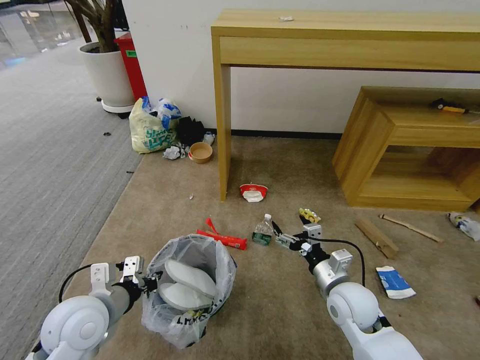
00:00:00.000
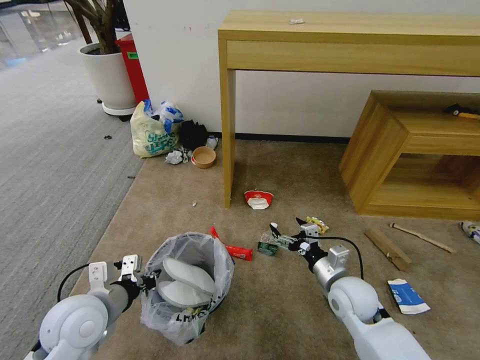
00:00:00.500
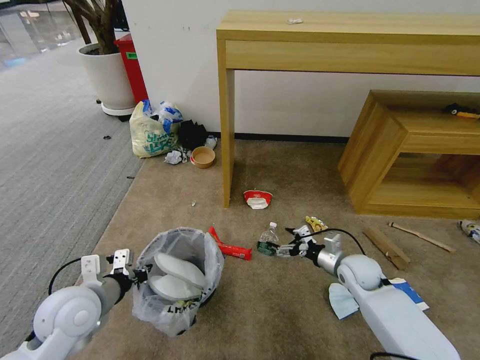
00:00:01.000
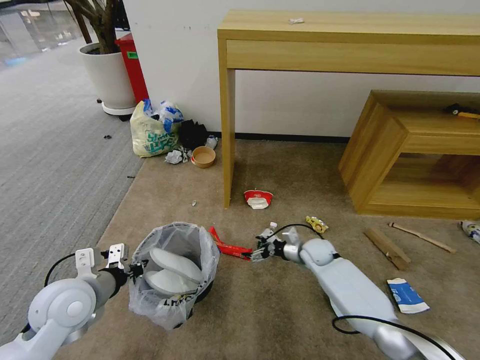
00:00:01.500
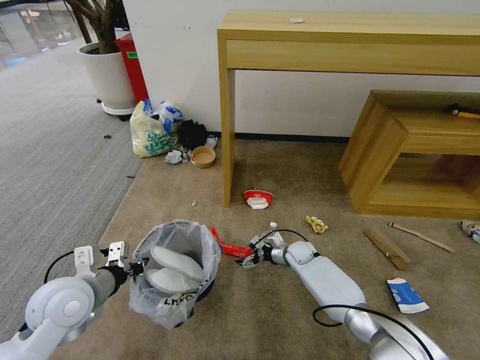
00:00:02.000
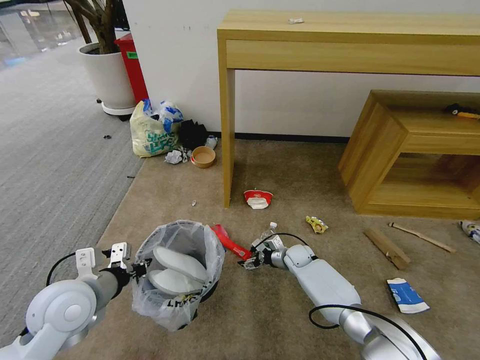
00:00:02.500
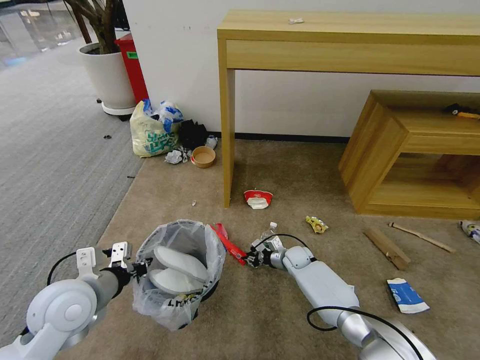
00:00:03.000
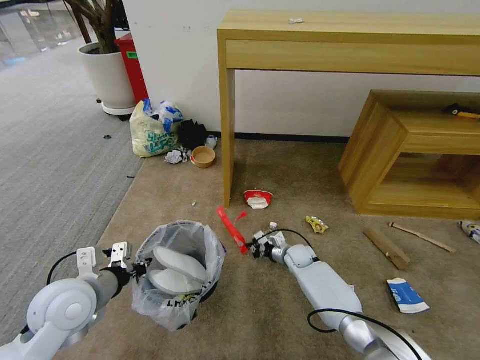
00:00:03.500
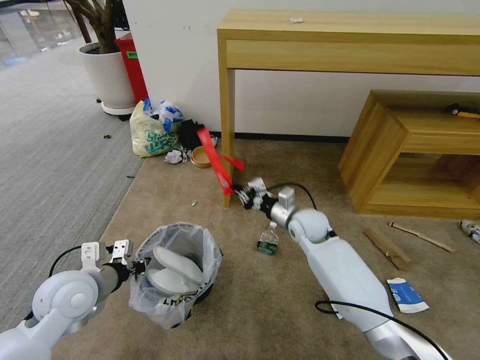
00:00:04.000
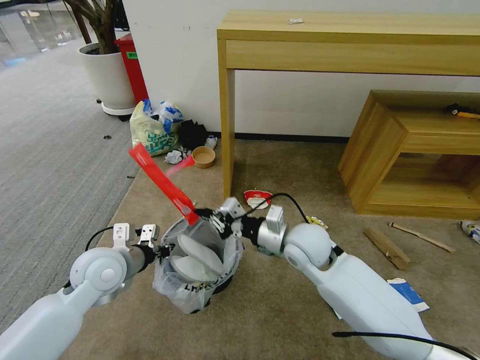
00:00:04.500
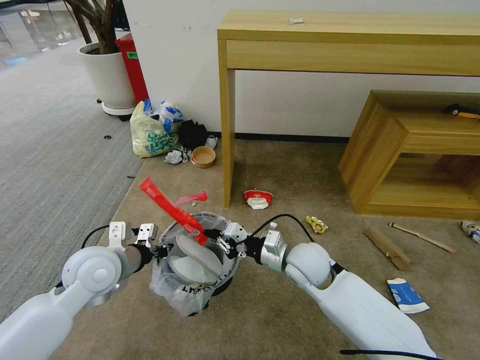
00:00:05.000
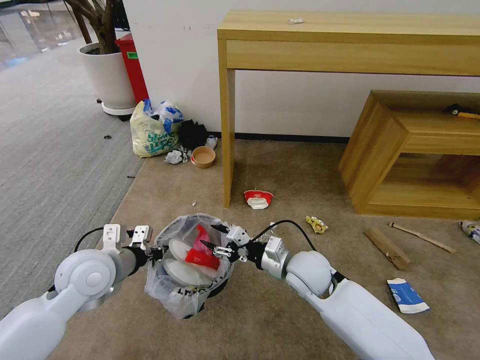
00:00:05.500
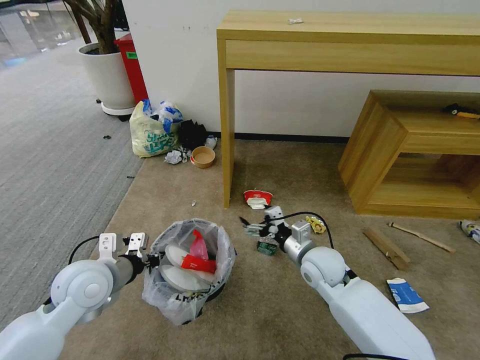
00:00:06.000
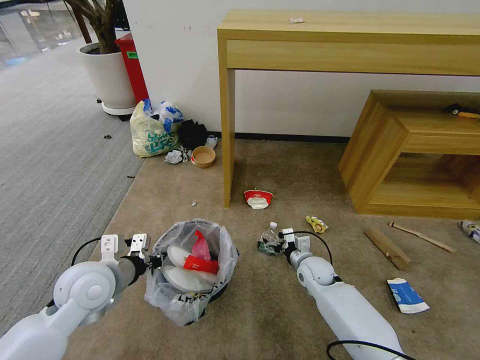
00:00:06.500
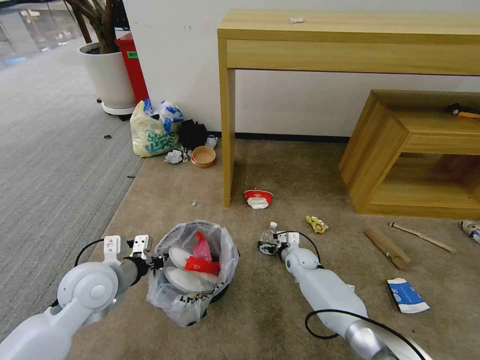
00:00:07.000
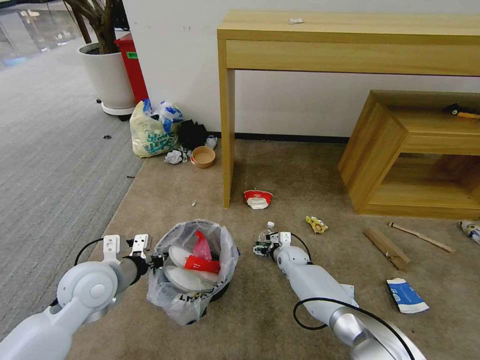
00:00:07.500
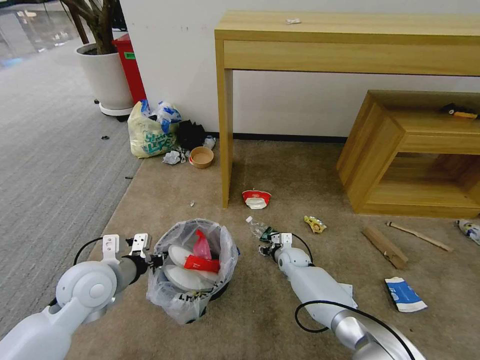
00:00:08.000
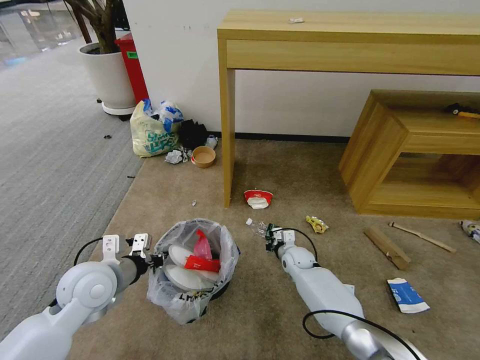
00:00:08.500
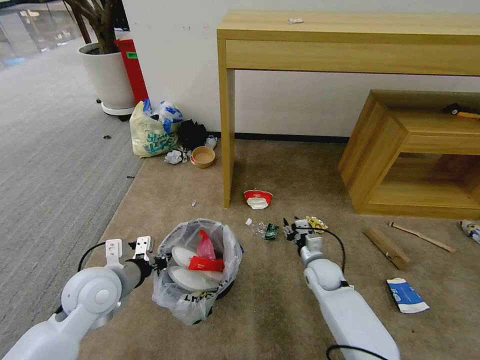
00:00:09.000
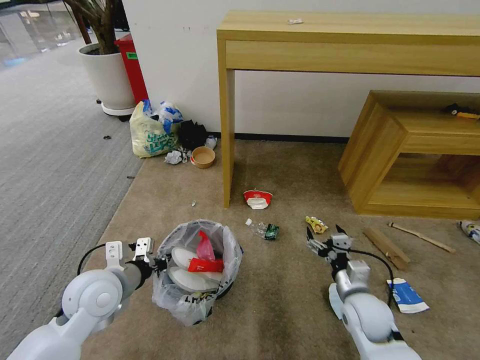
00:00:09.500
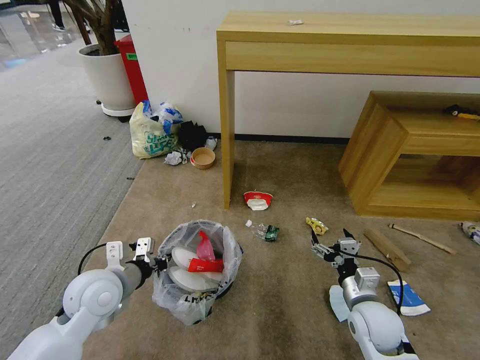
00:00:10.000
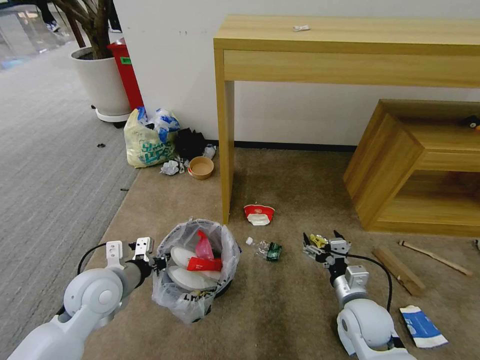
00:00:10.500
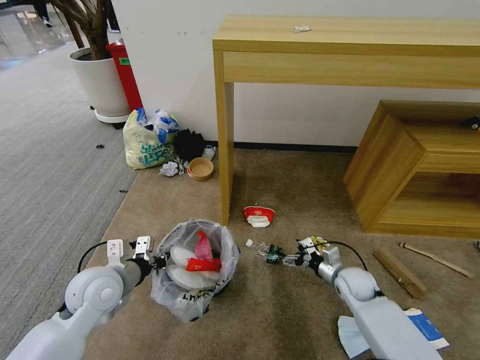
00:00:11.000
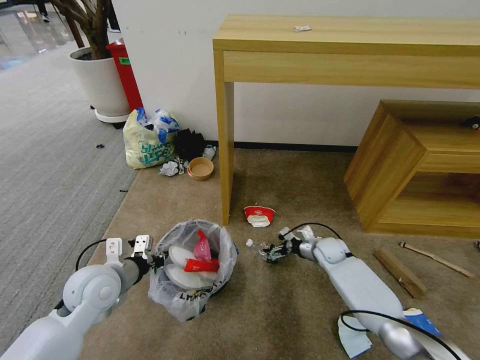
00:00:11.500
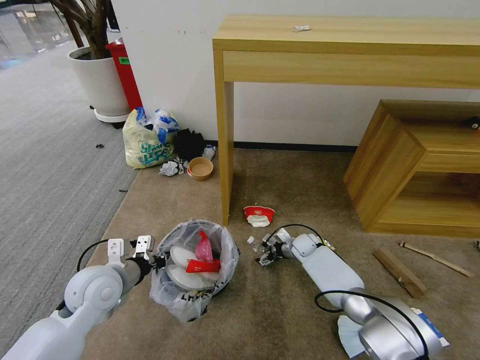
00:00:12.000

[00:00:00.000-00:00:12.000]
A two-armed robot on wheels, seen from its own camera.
Task of the whole recording: Pick up the trash bin and place the garbage on the floor into it.
00:00:00.000 to 00:00:02.000: The right gripper heads forward and downward, covering roughly 25 cm.
00:00:02.000 to 00:00:04.000: The right gripper moves upward, approximately 20 cm, and closes.
00:00:04.000 to 00:00:06.000: The right gripper shifts some 10 cm backward, and opens up.
00:00:06.000 to 00:00:08.000: The right gripper is displaced downward and forward by some 20 cm, and closes up.
00:00:08.000 to 00:00:10.000: The right gripper is displaced backward, upward and to the right by approximately 30 cm, and opens.
00:00:10.000 to 00:00:12.000: The right gripper shifts roughly 30 cm forward and downward.

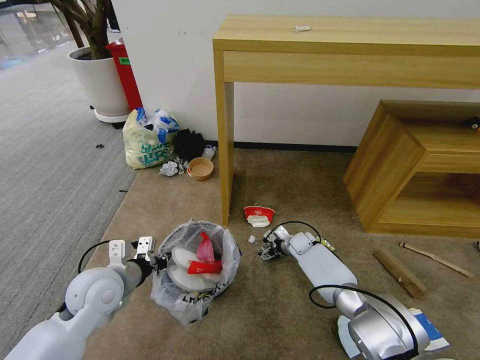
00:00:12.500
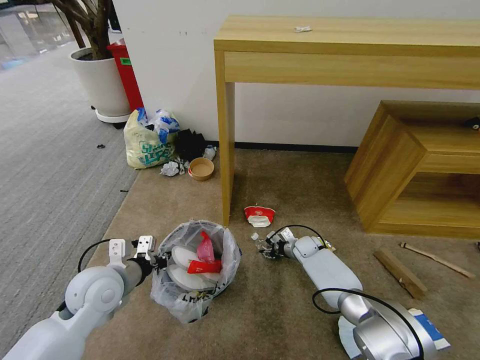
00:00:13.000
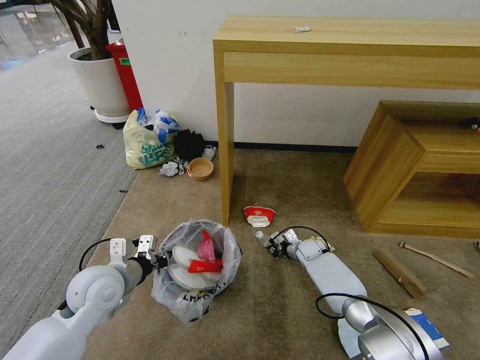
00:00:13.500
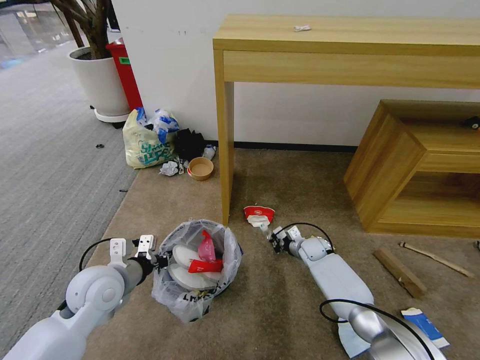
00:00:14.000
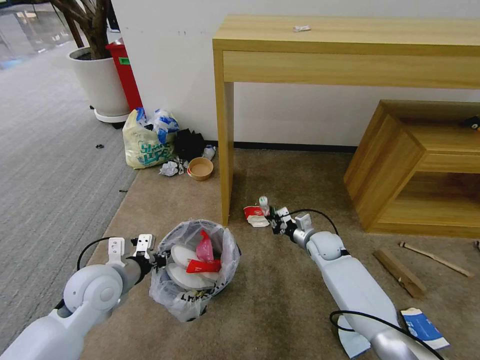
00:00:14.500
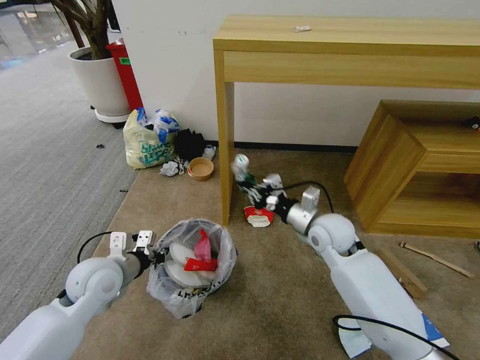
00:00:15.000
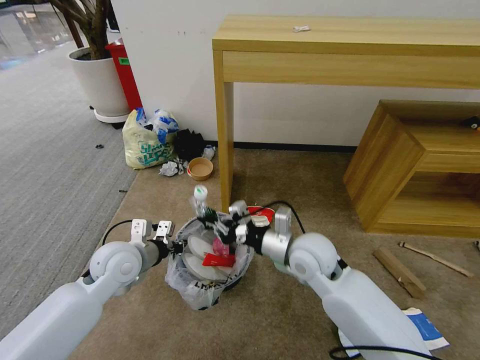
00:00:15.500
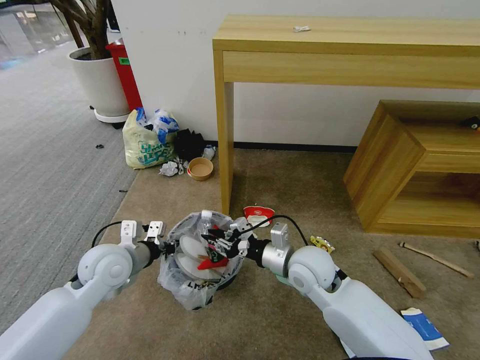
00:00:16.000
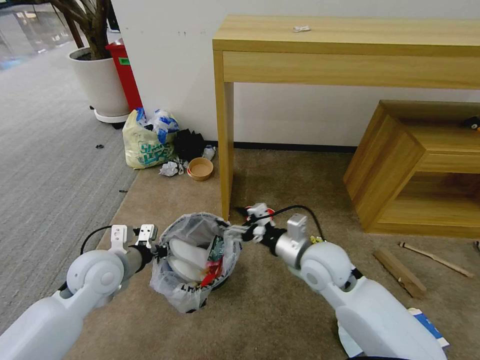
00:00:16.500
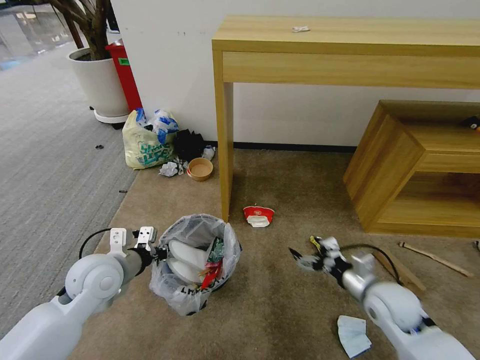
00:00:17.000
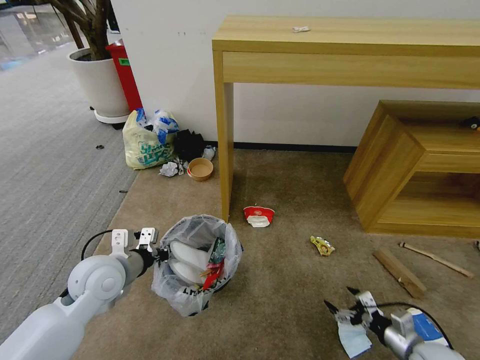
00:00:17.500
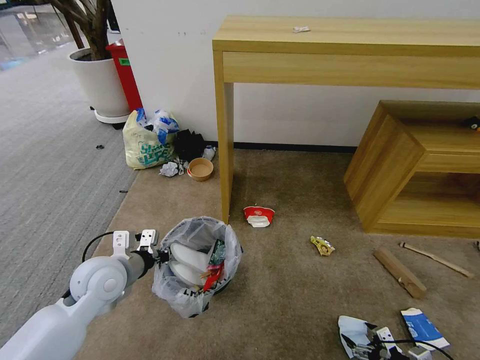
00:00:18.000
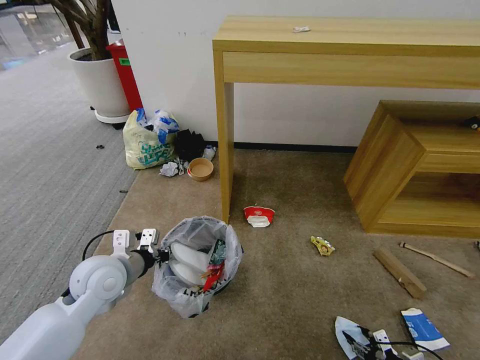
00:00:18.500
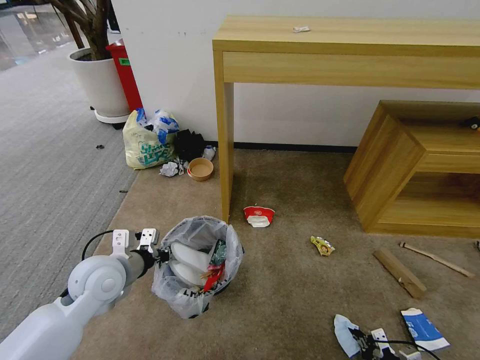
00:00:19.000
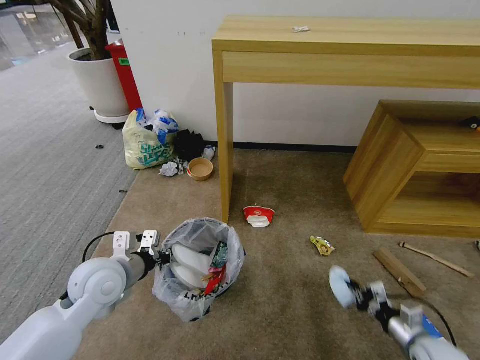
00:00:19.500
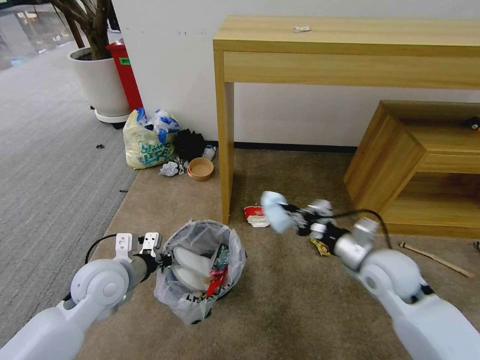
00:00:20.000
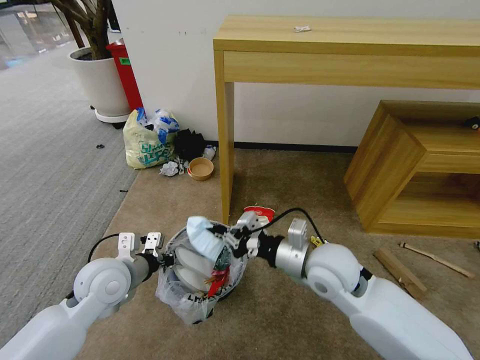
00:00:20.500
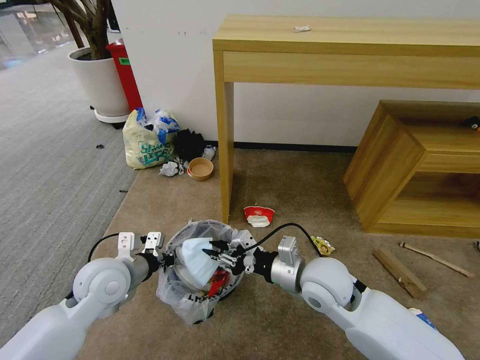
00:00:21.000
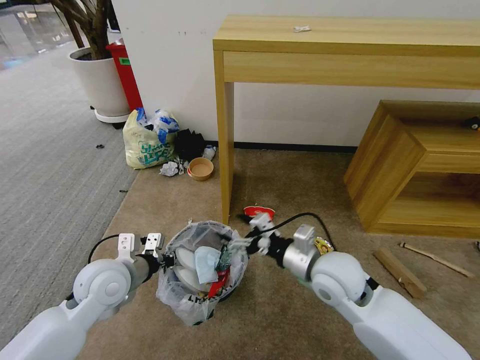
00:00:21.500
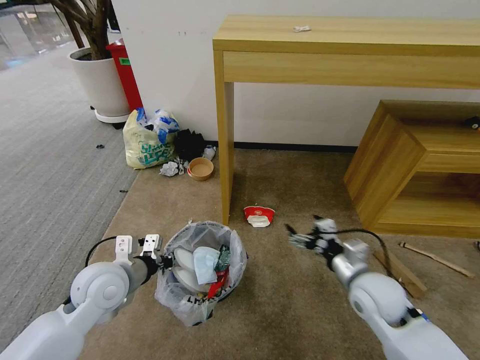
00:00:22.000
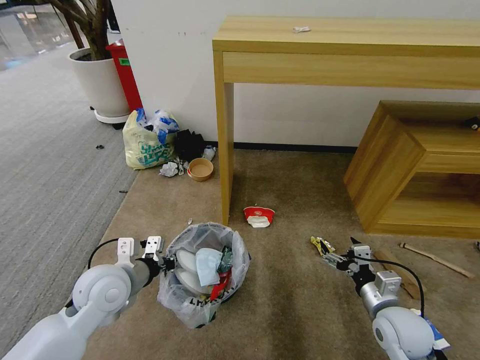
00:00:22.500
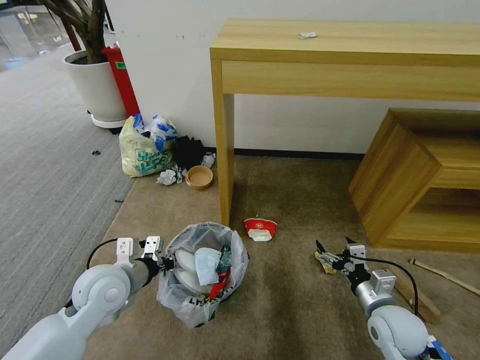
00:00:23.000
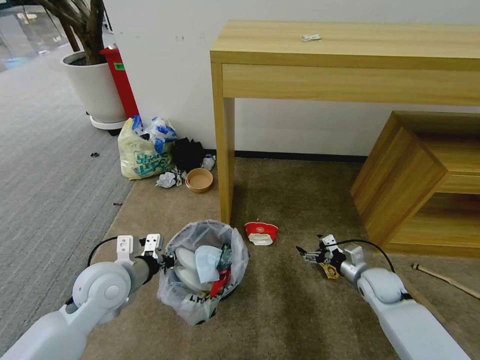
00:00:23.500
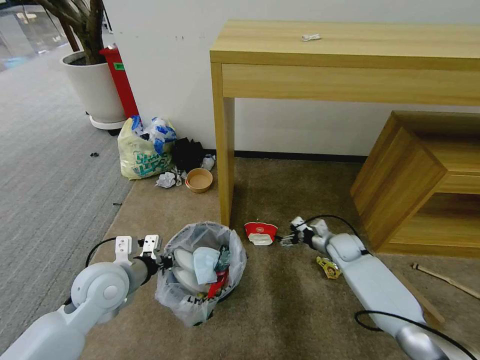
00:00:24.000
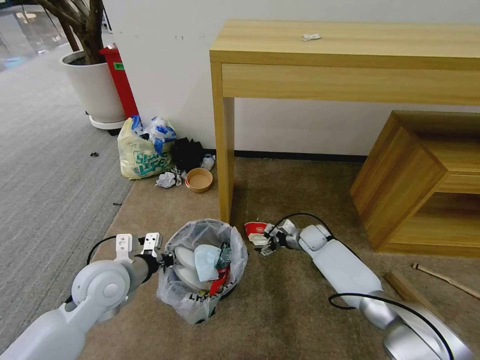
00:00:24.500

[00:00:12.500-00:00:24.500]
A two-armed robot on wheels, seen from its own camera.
Task of the whole recording: Pick up the trash bin and place the garbage on the floor into it.
00:00:12.500 to 00:00:14.500: The right gripper is displaced upward and backward by roughly 10 cm, and closes.
00:00:14.500 to 00:00:16.500: The right gripper travels upward, backward and to the left by about 20 cm, and opens up.
00:00:16.500 to 00:00:18.500: The right gripper moves to the right, downward and backward, approximately 50 cm.
00:00:18.500 to 00:00:20.500: The right gripper goes roughly 50 cm to the left, upward and forward, and closes up.
00:00:20.500 to 00:00:22.500: The right gripper heads to the right, downward and backward, covering some 20 cm, and opens up.
00:00:22.500 to 00:00:24.500: The right gripper shifts approximately 30 cm forward.

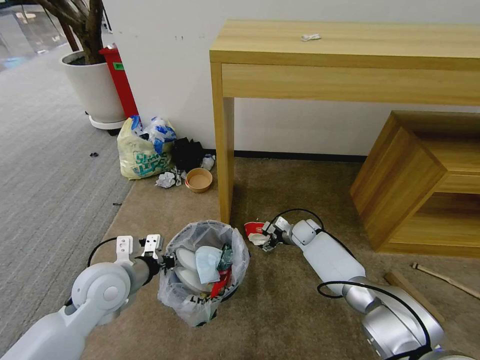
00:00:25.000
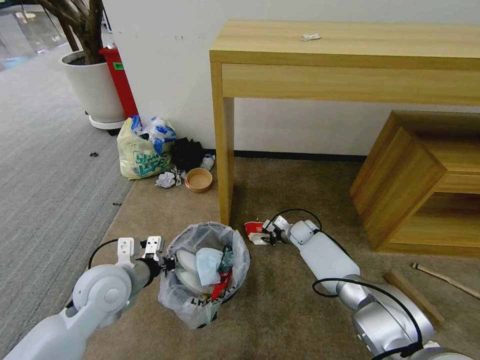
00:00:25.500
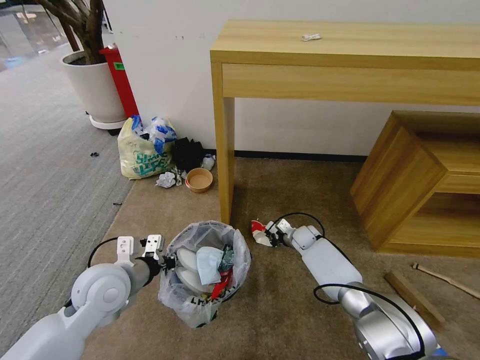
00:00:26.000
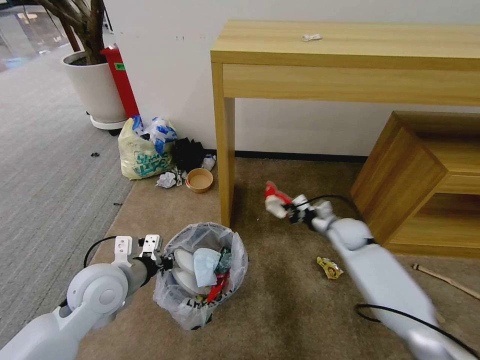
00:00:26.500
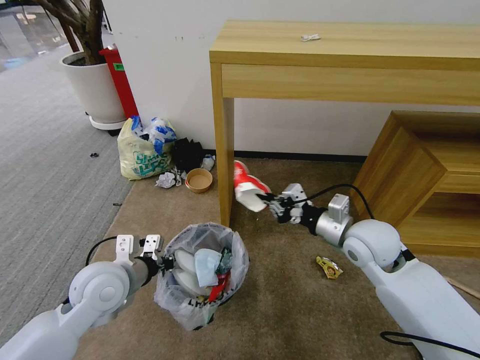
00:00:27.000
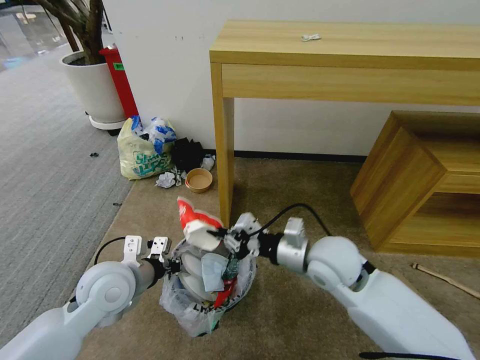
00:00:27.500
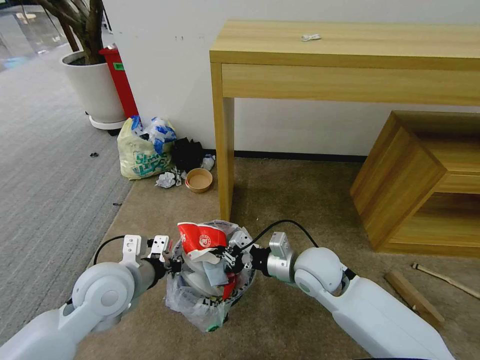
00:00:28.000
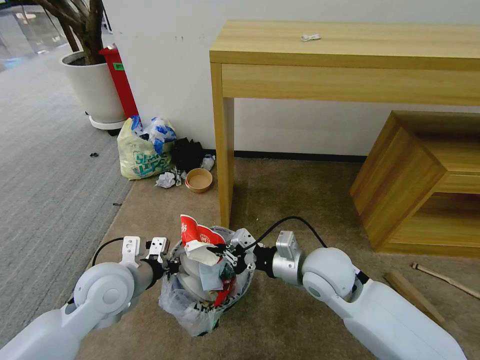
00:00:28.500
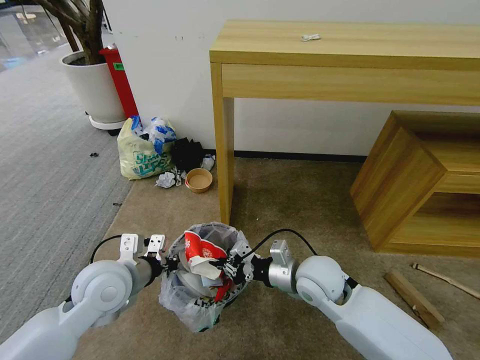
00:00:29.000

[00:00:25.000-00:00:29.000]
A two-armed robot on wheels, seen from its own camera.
Task of the whole recording: Pick up the trash bin and place the garbage on the floor into it.
00:00:25.000 to 00:00:27.000: The right gripper heads upward and backward, covering roughly 30 cm, and closes up.
00:00:27.000 to 00:00:29.000: The right gripper shifts approximately 10 cm to the left and downward.
